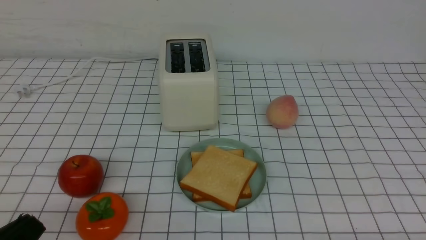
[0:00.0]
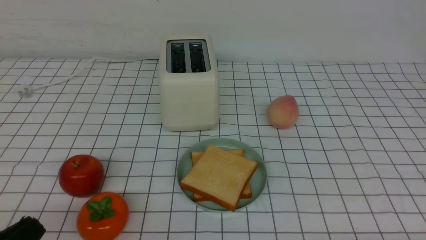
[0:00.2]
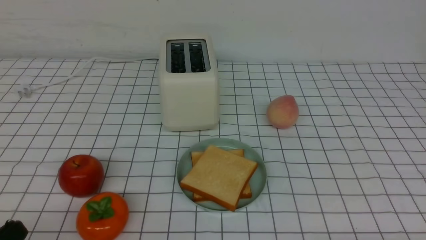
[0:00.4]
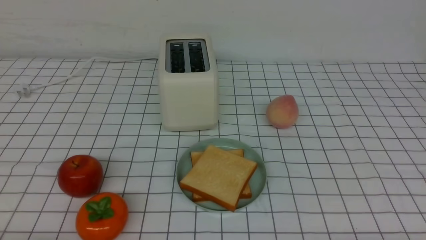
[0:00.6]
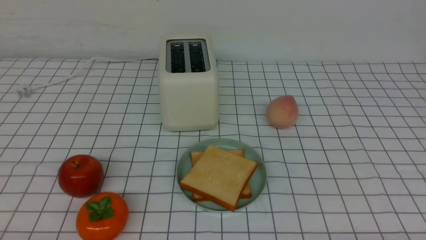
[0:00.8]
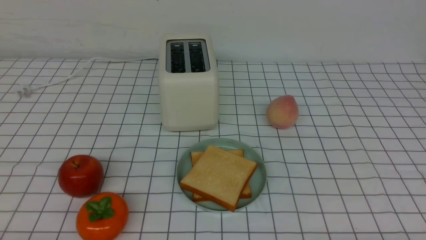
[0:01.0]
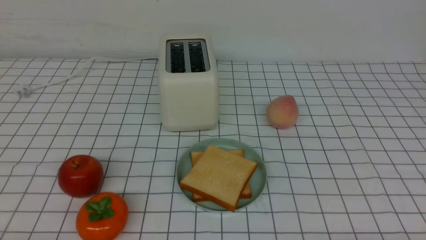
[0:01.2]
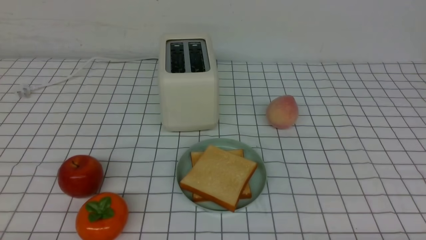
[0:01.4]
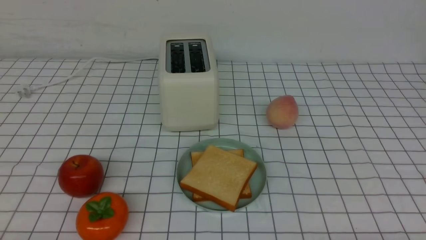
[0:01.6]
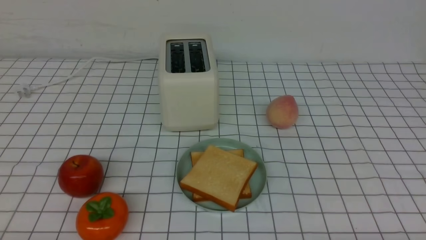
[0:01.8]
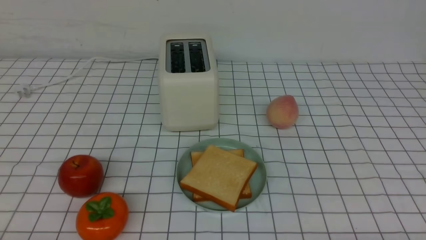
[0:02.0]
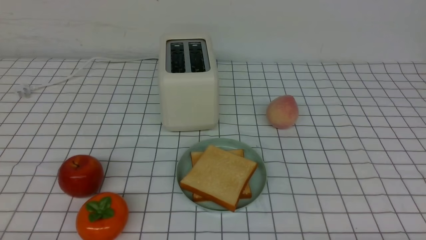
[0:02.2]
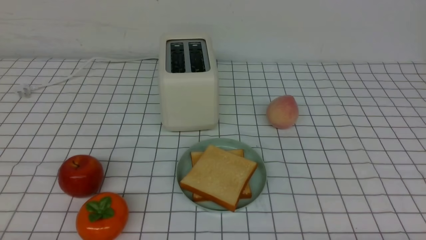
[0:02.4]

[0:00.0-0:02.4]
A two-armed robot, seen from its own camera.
Task of the whole recording: take toasted bread from bread machine on white checkered table place on plate.
0:00.0 to 0:01.2: The left gripper shifts about 10 cm downward.
0:01.2 to 0:02.4: Both grippers stay about where they are.
